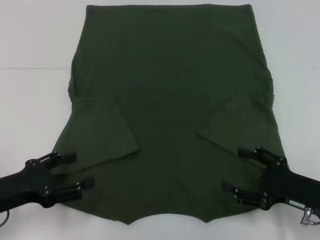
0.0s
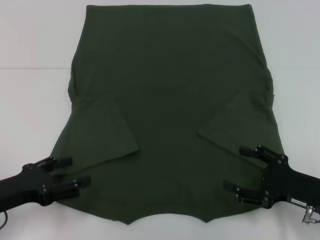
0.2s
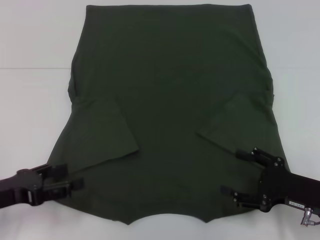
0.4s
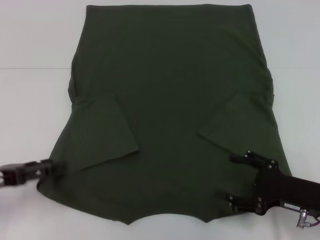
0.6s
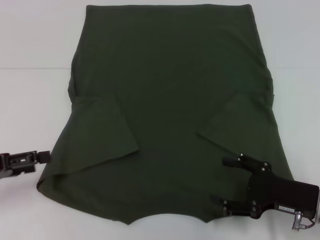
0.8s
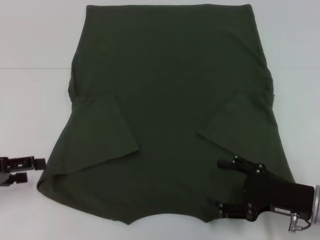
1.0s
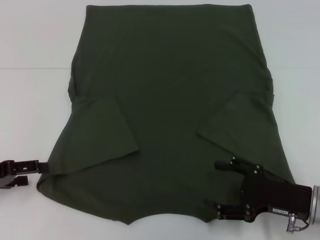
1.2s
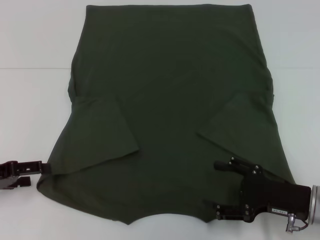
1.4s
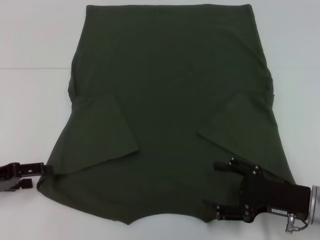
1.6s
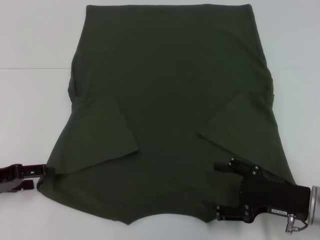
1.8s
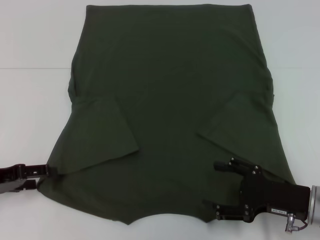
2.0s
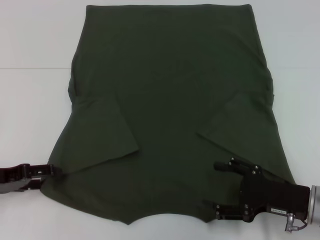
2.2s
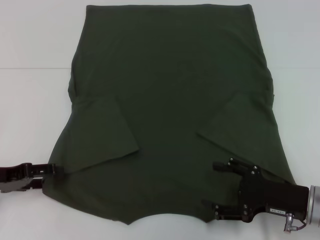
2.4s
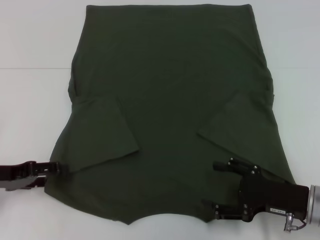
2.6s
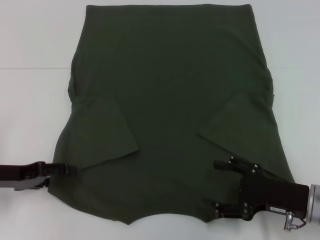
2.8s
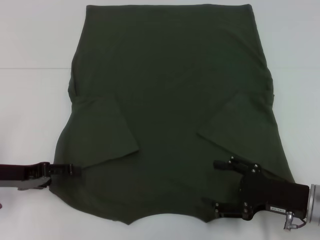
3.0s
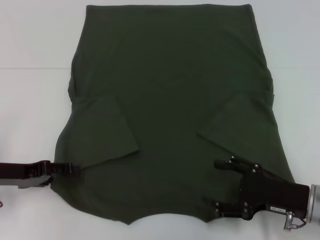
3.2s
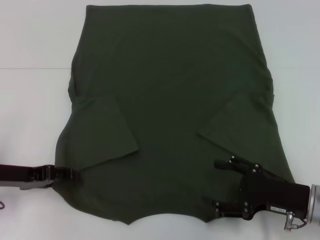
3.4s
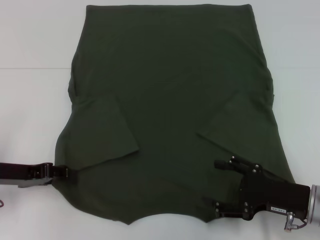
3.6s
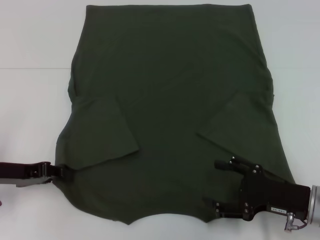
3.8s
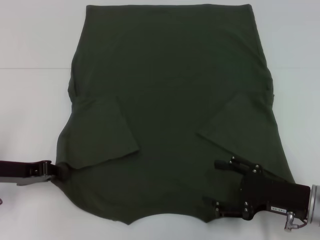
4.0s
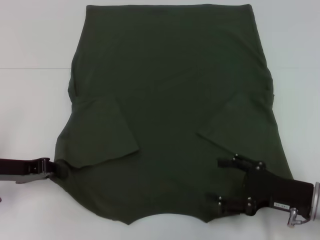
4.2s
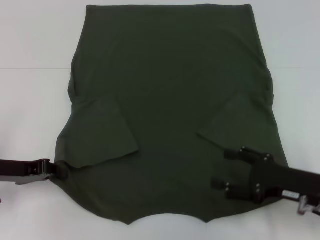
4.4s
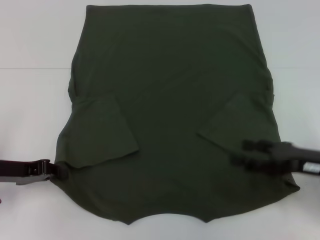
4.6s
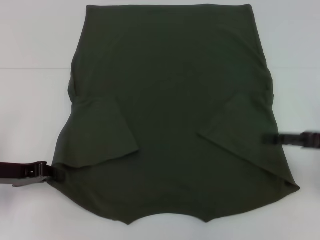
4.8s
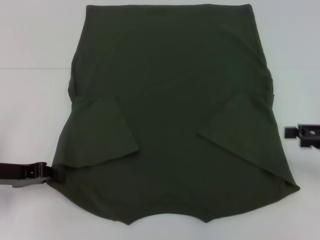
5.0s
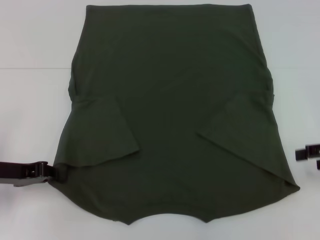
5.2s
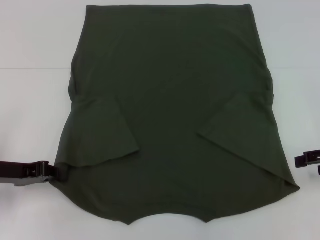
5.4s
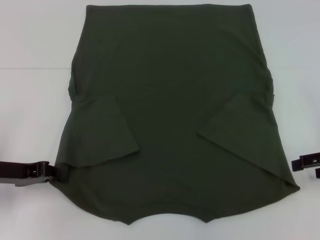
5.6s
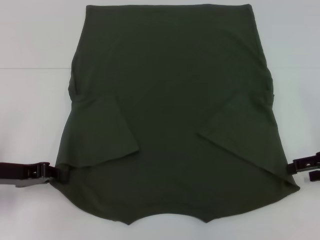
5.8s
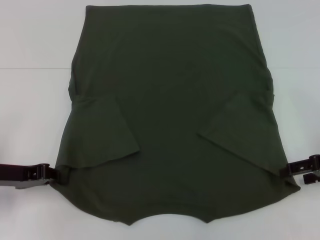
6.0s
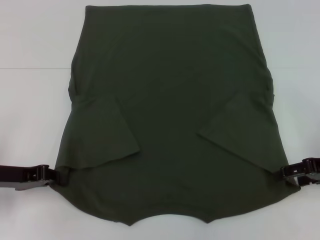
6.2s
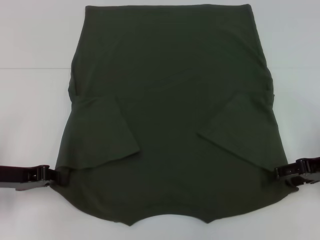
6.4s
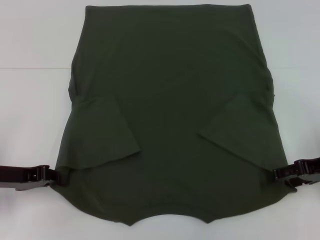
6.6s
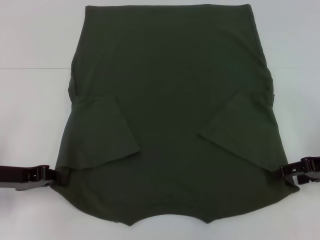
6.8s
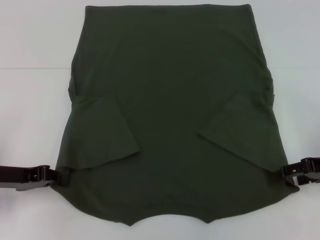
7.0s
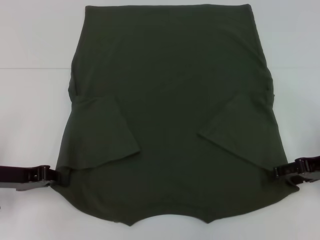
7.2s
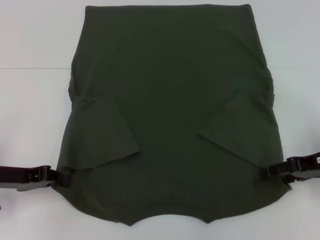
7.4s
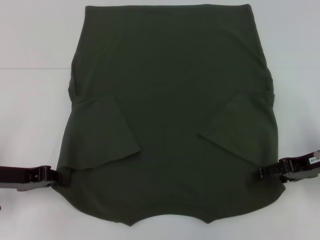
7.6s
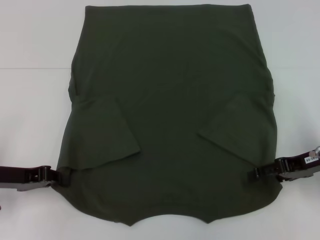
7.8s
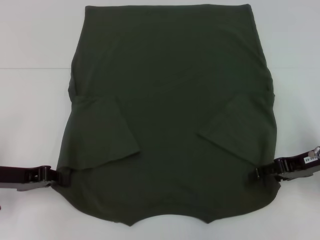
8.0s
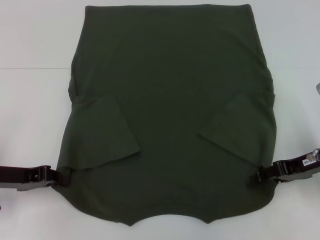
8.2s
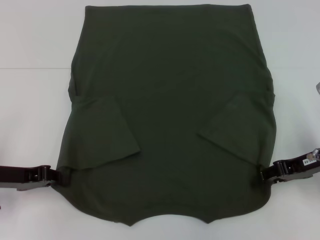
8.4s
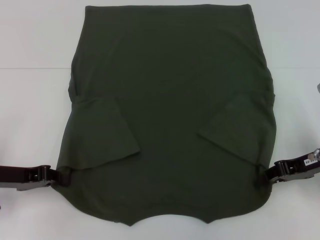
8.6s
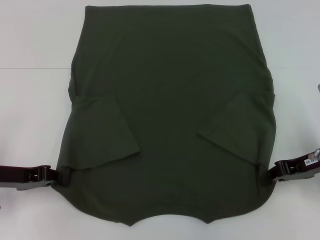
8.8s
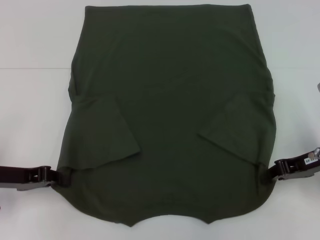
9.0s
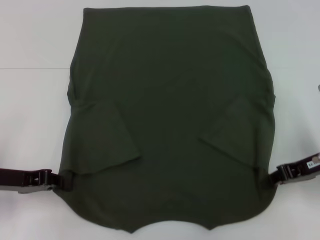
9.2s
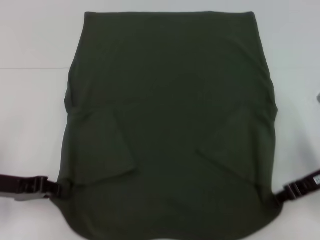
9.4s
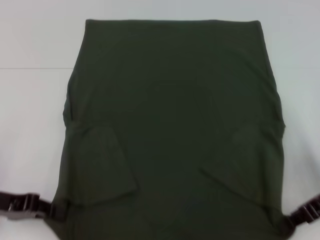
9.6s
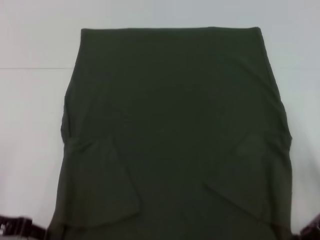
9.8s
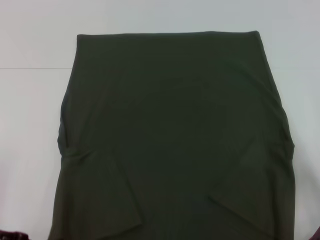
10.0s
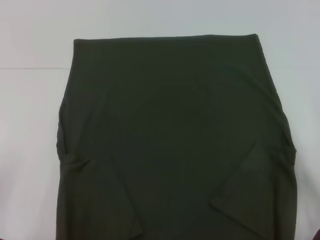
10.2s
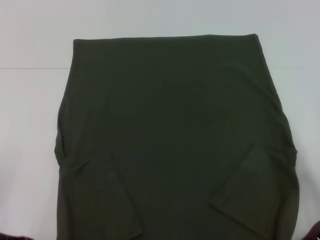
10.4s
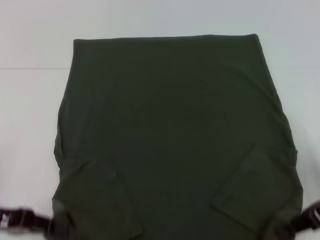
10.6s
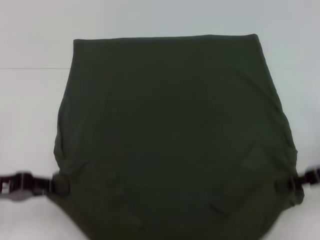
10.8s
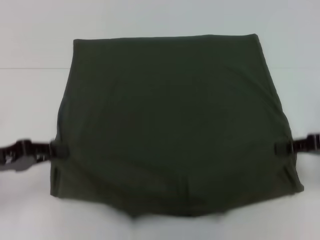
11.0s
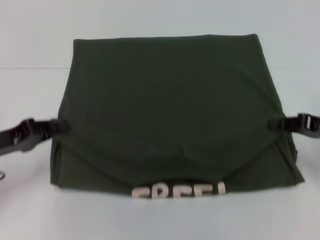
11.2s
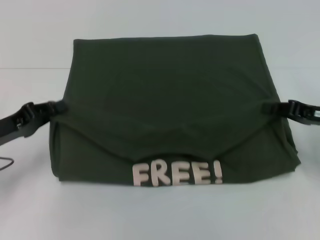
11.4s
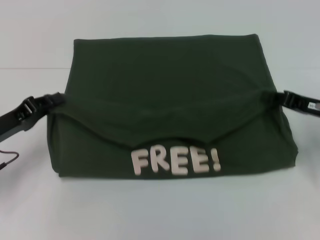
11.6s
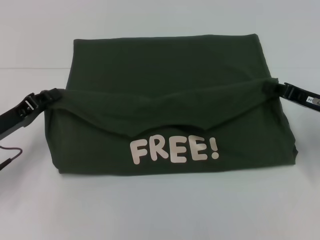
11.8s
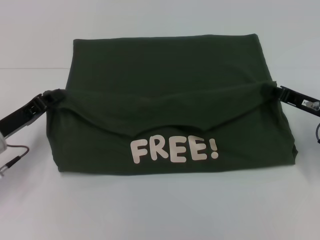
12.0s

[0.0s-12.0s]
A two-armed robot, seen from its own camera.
Step, 0.0s to 3.6s: Grab the bottom left corner with your left hand.
Step, 3.8s to 8.6s: Grab the bottom right corner with your right hand.
0.0s to 1.6s: The left gripper heads to the left, covering some 5 cm.
1.6s to 3.0s: The grippers make only small movements.
3.0s to 4.4s: The left gripper closes its fingers.
4.4s to 6.0s: The right gripper heads to the right, upward and forward, covering roughly 10 cm.
6.0s to 7.6s: The grippers stay close to where they were, moving slightly.
7.6s to 9.0s: The right gripper closes its fingers.
9.0s to 10.4s: Both grippers move backward, approximately 5 cm.
10.4s to 12.0s: The grippers both shift forward by about 10 cm.

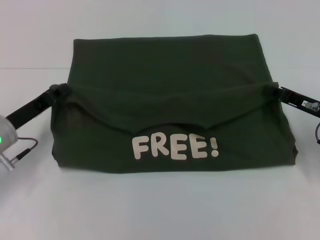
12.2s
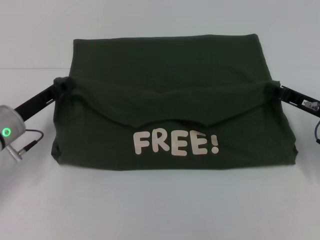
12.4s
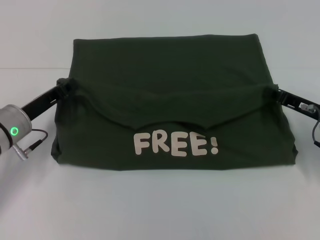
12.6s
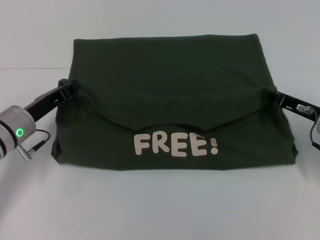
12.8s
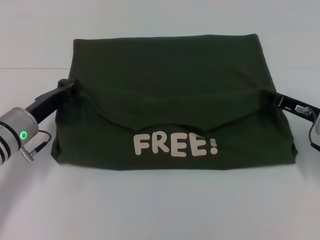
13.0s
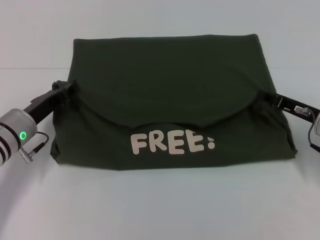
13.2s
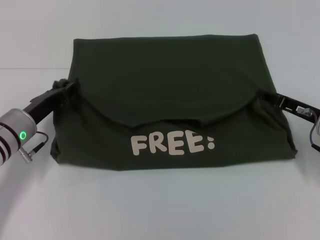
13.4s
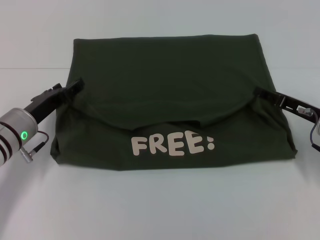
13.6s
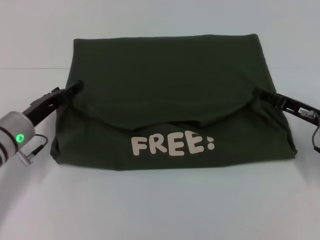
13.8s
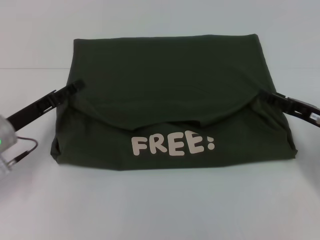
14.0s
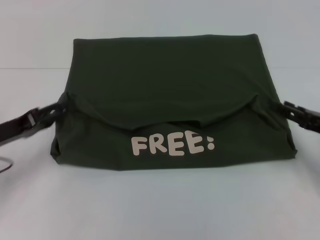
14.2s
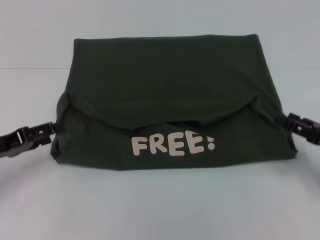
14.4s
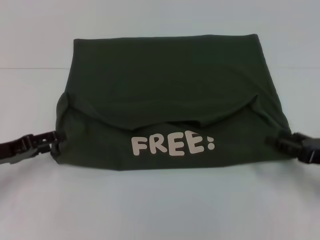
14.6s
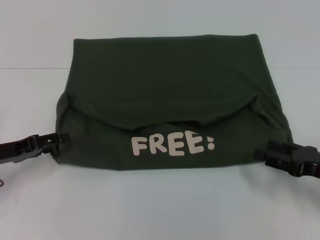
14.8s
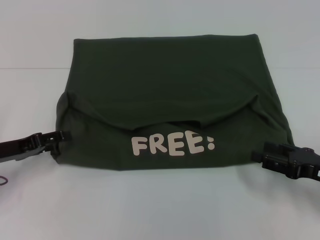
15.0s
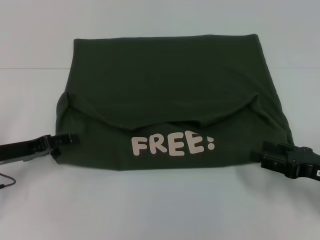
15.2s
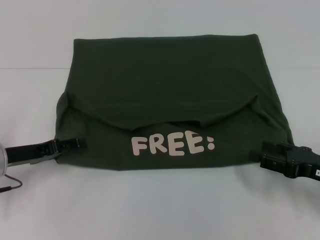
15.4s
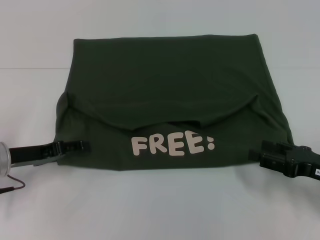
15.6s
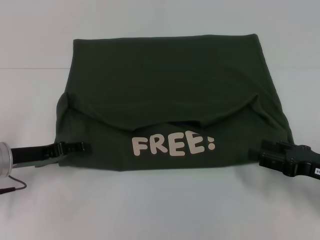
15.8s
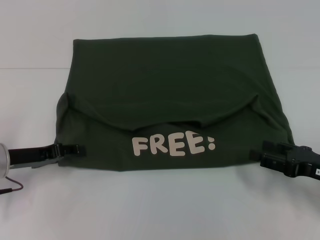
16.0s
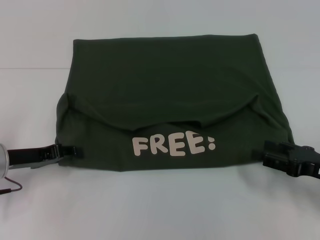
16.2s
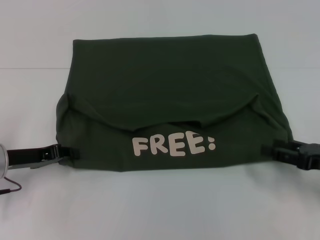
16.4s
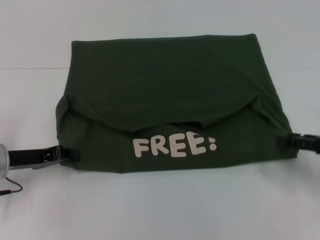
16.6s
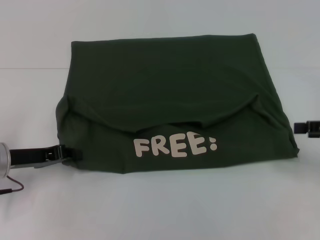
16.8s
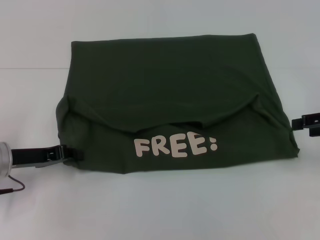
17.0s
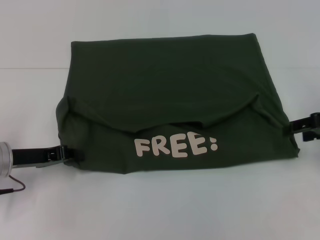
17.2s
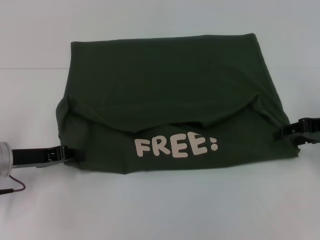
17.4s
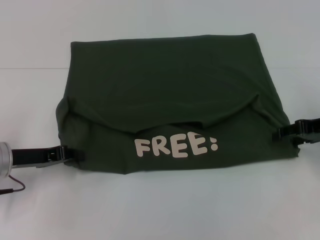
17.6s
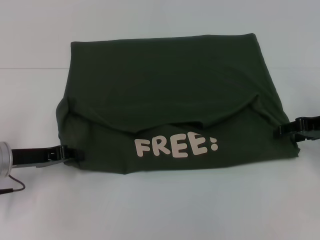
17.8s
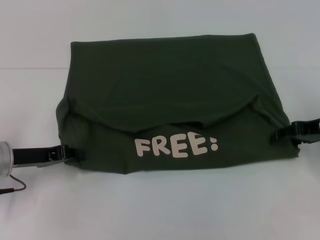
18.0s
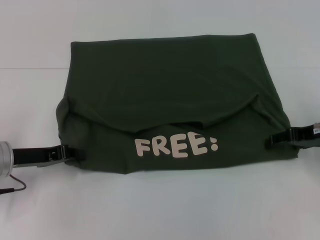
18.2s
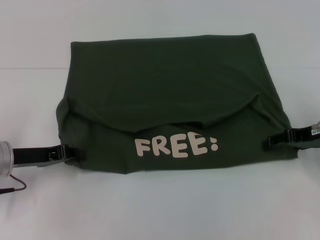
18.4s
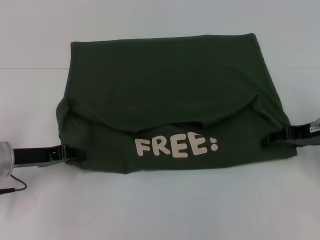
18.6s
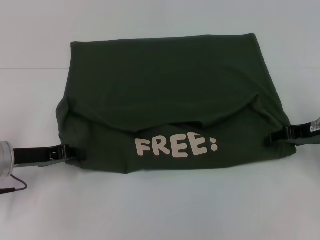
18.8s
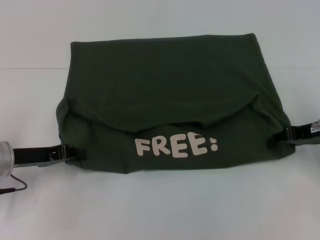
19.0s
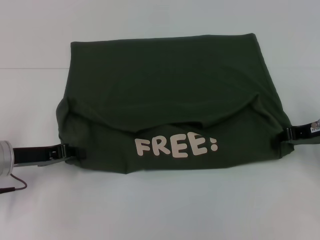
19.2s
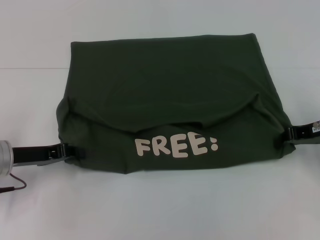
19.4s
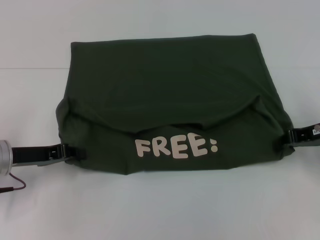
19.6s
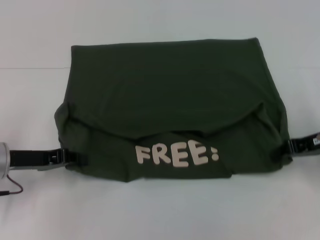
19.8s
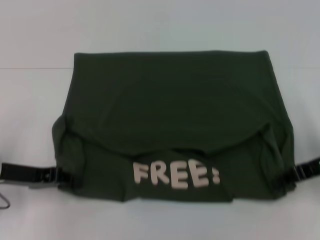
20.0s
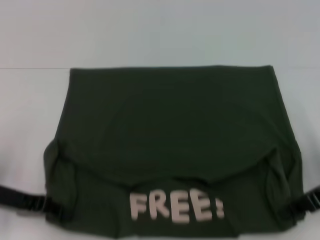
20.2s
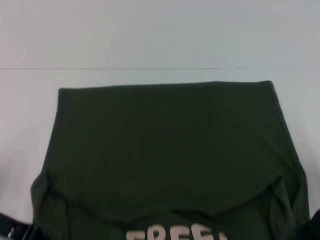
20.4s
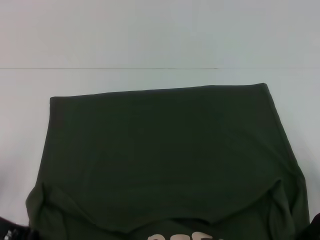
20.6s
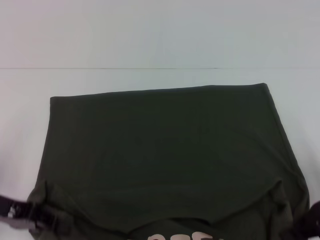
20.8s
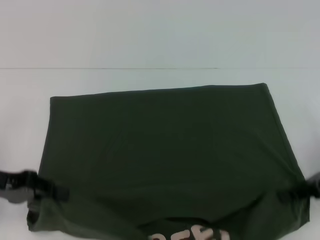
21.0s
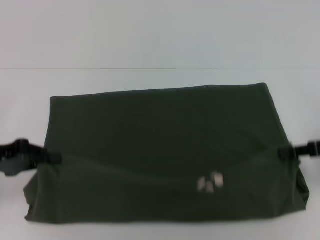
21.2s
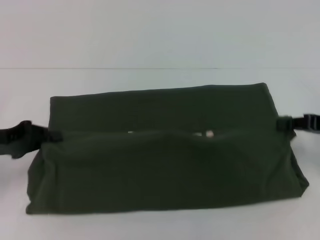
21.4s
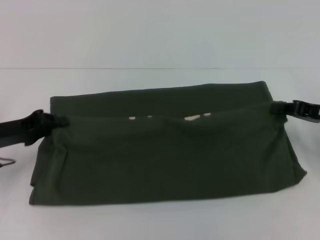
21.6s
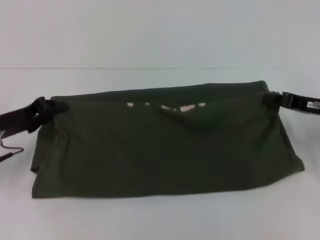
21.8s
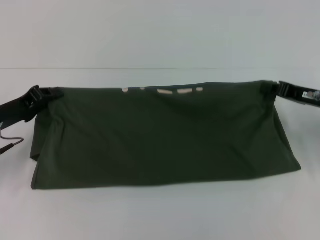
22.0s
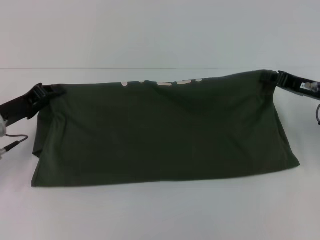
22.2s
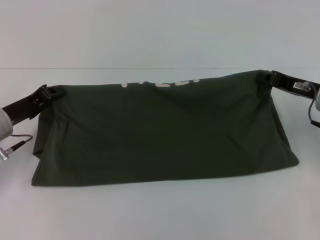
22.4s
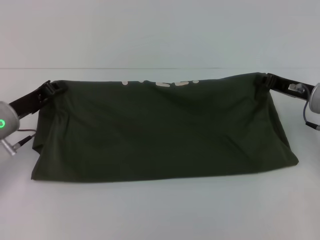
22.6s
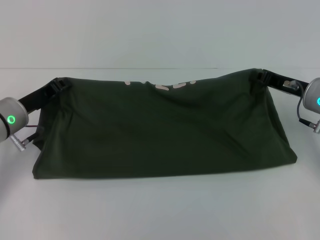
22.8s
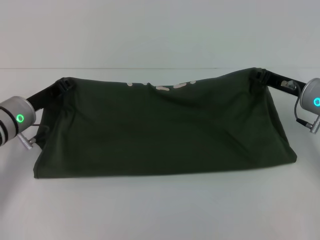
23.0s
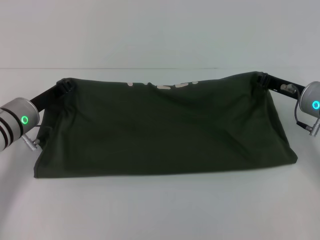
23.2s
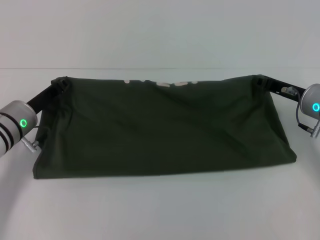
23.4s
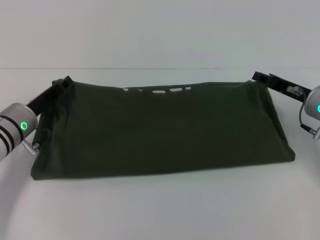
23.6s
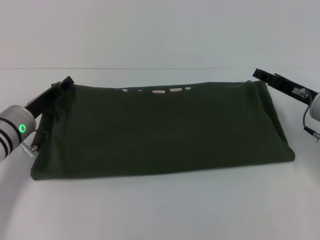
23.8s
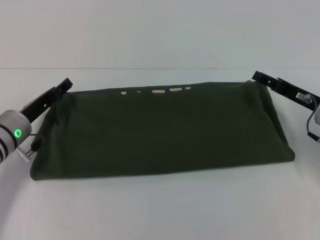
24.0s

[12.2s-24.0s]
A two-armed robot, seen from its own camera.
Step, 12.2s to 14.2s: Fold the clothes with your left hand.
Step, 12.2s to 14.2s: Fold the clothes with your right hand.
Step, 14.4s to 20.6s: Pull the clothes with your left hand.
Step, 14.4s to 20.6s: Pull the clothes with your right hand.
12.2s to 13.6s: The left gripper opens its fingers. Meanwhile the right gripper opens its fingers.
13.6s to 15.2s: The right gripper moves backward, roughly 10 cm. Meanwhile the left gripper moves to the left, about 5 cm.
15.2s to 16.6s: The left gripper closes. The right gripper shifts approximately 5 cm upward.
16.6s to 18.2s: The right gripper goes roughly 10 cm forward.
18.2s to 19.6s: The right gripper closes up.
19.6s to 21.0s: The right gripper travels backward by approximately 5 cm. Meanwhile the left gripper ends up approximately 5 cm from where it was.
21.0s to 22.6s: The grippers both shift forward by approximately 10 cm.
22.6s to 24.0s: The left gripper opens, while the right gripper opens.
